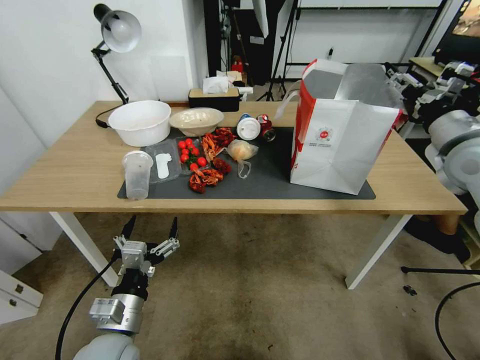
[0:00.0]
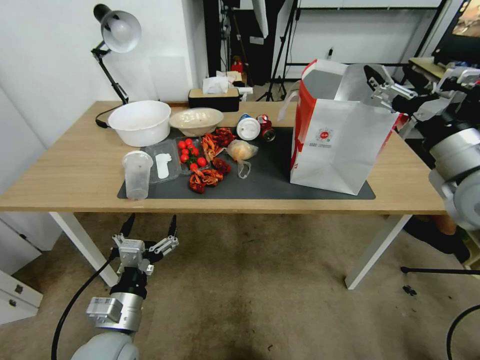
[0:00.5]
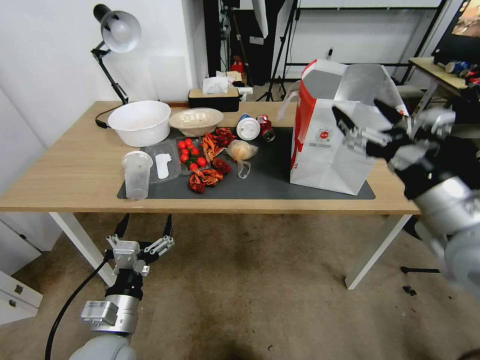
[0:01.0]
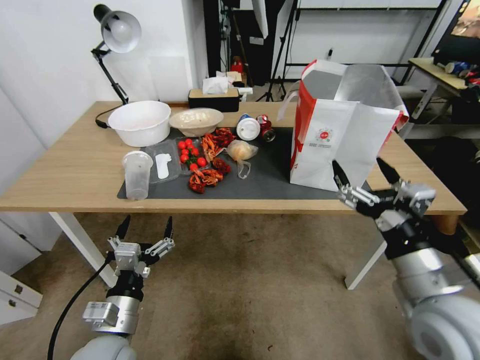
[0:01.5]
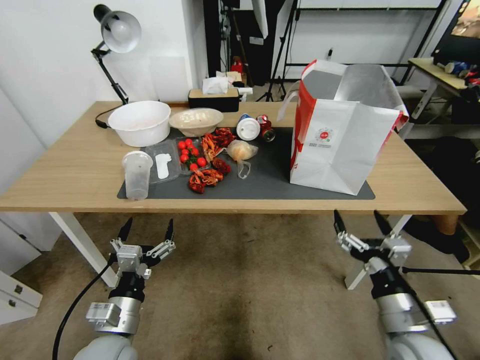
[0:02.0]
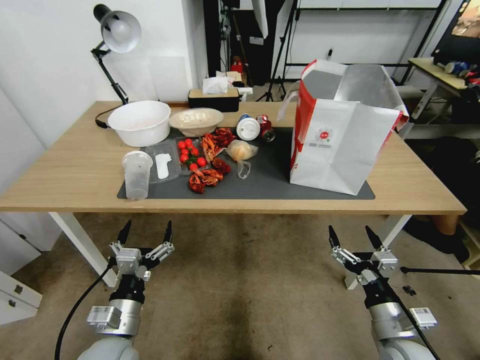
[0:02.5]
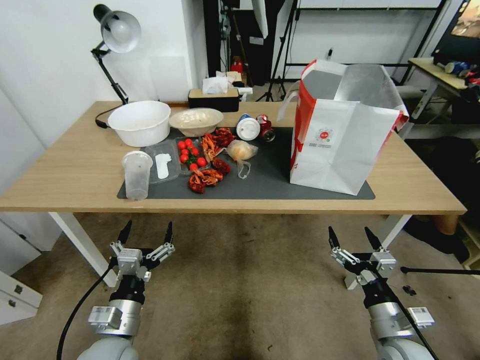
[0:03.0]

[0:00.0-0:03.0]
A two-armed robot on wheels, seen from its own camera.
Task of the whole recording: Pick up the food delivery bag from the floor and place it on the table.
0:00.0 to 0:01.5: The right gripper heads backward, to the left and downward, covering approximately 25 cm.
0:01.5 to 0:03.0: The right gripper travels downward by approximately 20 cm.
